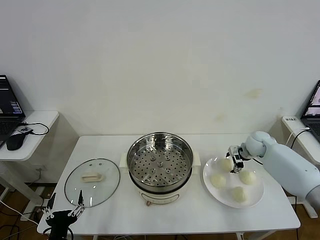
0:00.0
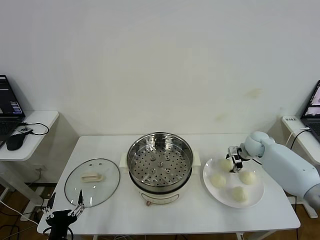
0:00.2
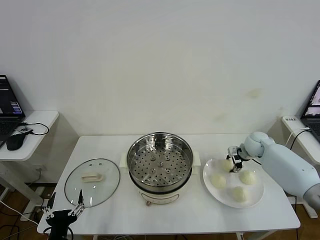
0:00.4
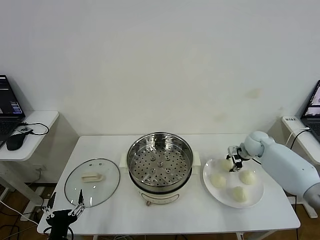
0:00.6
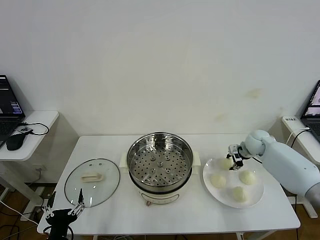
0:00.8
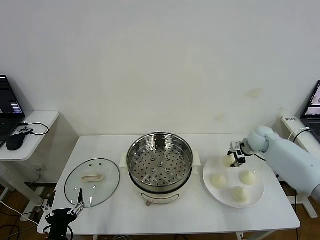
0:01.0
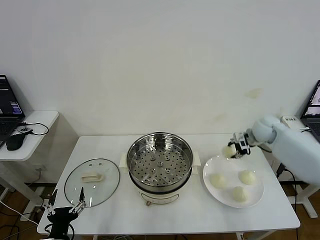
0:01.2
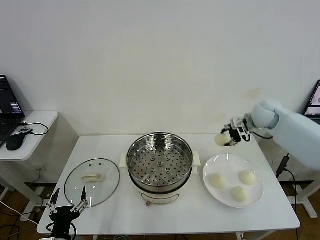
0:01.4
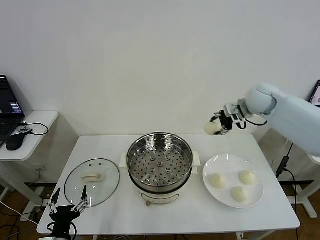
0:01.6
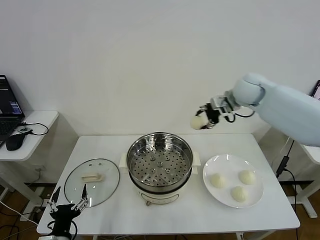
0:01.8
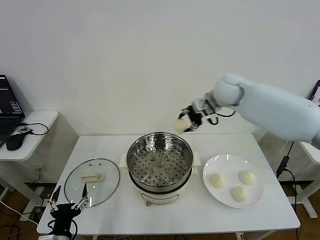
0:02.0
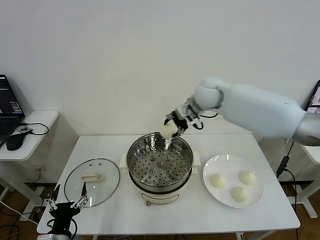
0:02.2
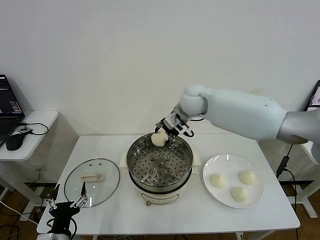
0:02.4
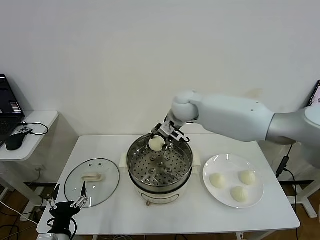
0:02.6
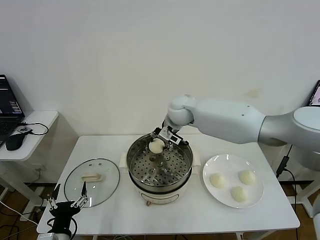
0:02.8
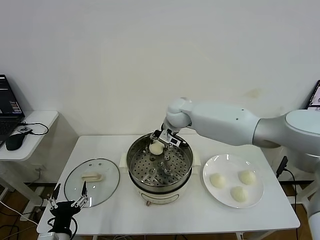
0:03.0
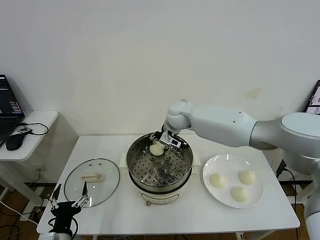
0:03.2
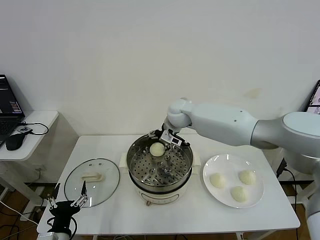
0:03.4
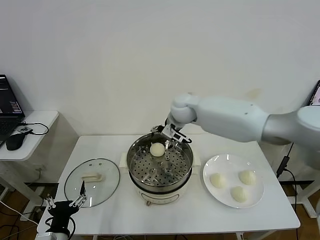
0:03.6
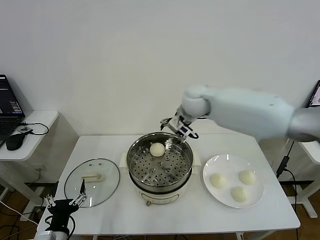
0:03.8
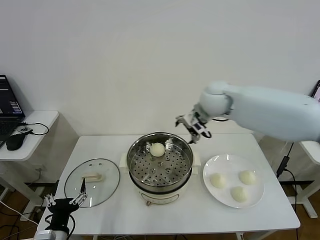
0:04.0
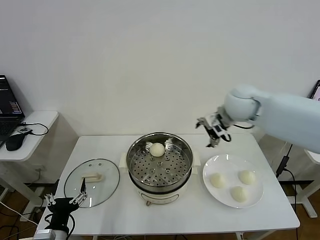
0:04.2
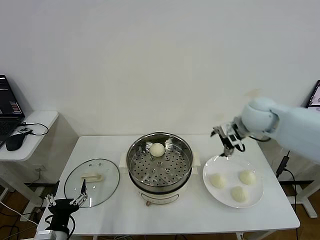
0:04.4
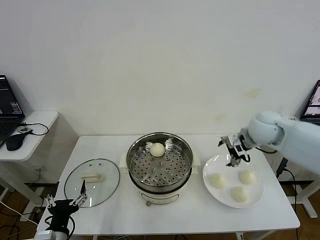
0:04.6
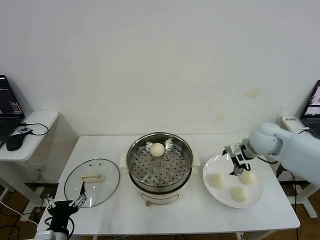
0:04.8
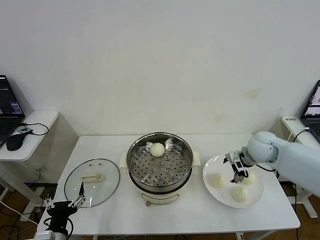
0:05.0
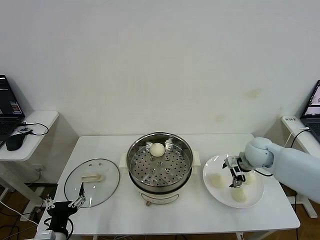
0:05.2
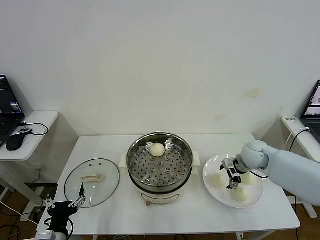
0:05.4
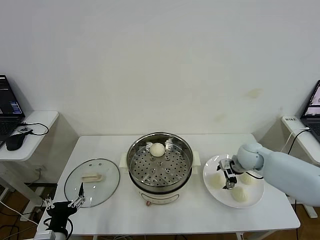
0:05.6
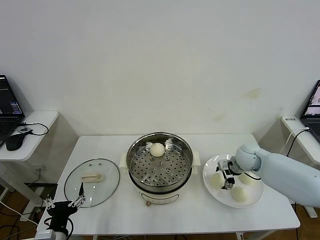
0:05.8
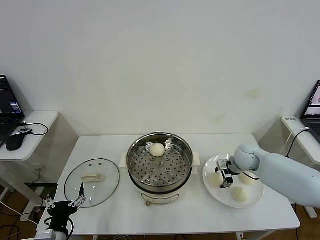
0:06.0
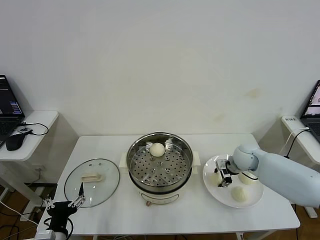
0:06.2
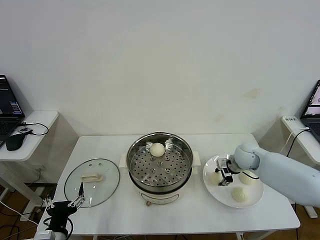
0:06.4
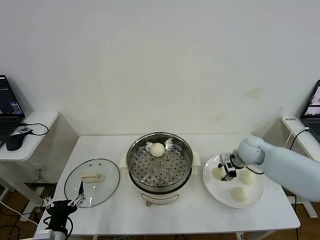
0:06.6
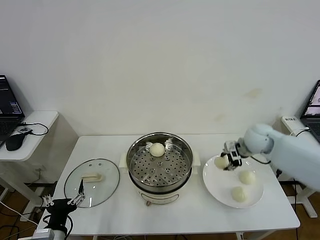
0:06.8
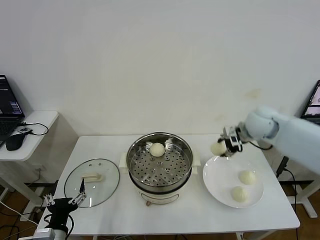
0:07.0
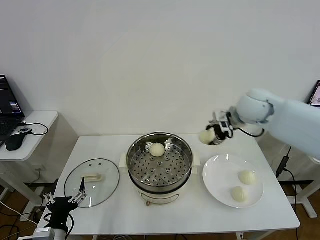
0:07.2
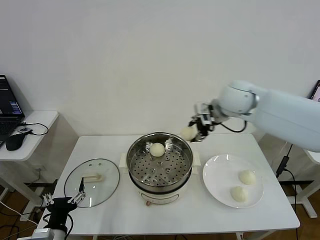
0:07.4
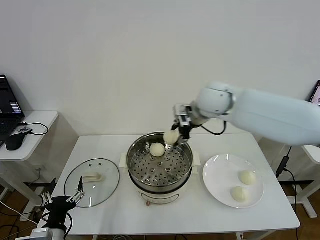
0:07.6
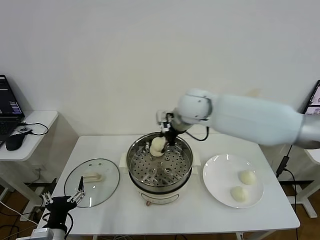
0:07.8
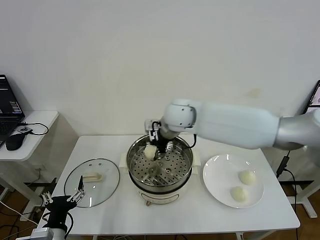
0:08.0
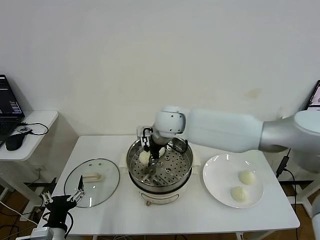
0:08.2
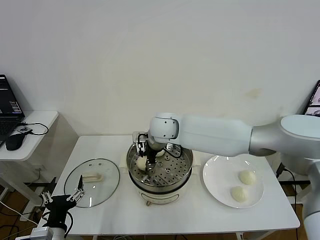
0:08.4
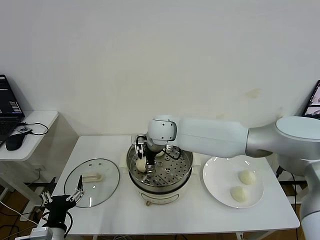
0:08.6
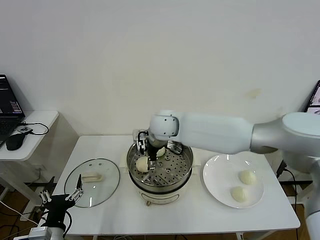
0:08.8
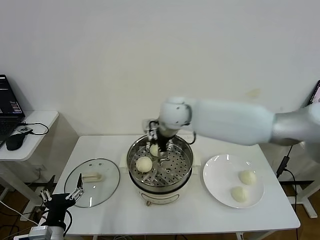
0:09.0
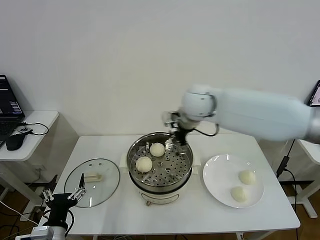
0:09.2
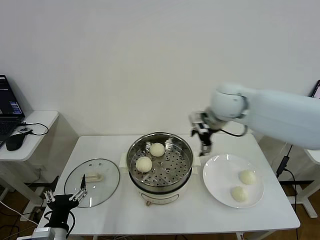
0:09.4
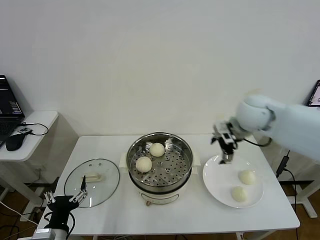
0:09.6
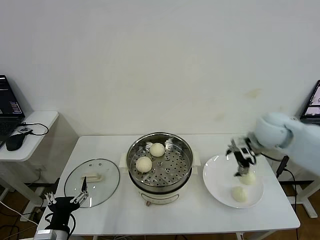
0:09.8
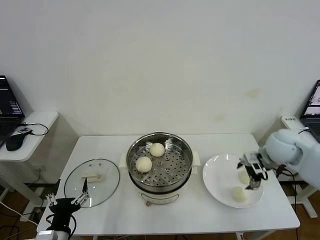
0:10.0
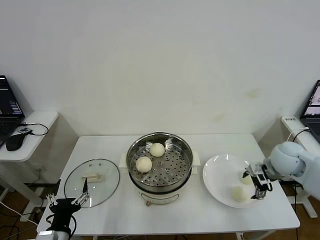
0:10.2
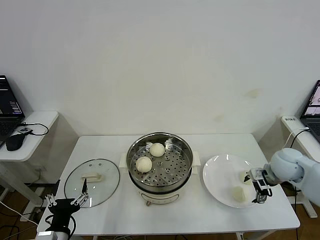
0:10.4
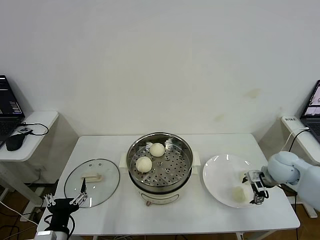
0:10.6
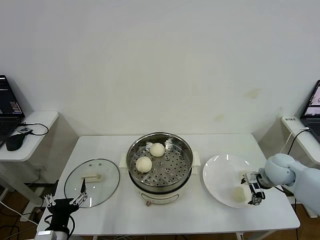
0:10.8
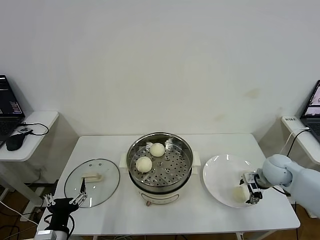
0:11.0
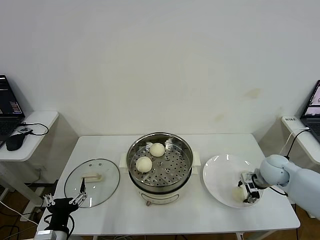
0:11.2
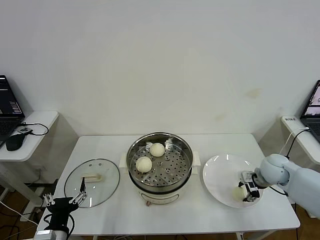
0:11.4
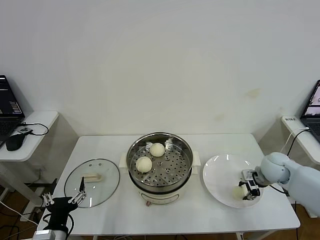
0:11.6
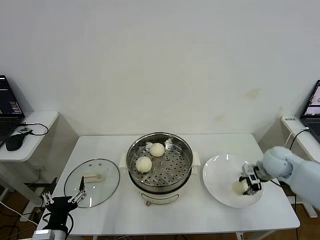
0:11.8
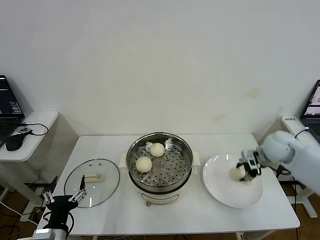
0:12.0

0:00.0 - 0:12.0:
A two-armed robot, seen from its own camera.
Step, 0:00.8 - 0:03.4: Place the baozi on the steamer with right gripper.
Step, 0:03.6 - 0:06.4: Grasp the baozi in the plate with right gripper.
Step, 0:06.6 - 0:08.8: Place the baozi on the steamer with right gripper.
Step, 0:09.0 - 0:11.6: Grasp the baozi in the plate with right gripper.
0:00.0 - 0:01.6: The right gripper moves upward, some 20 cm, and closes its fingers.
0:01.6 - 0:03.0: The right gripper goes some 25 cm to the left.
0:03.0 - 0:04.4: The right gripper shifts approximately 25 cm to the right, and opens.
0:04.4 - 0:06.0: The right gripper moves downward, about 20 cm, and closes.
0:06.0 - 0:07.6: The right gripper is displaced upward and to the left by approximately 30 cm, and closes its fingers.
0:07.6 - 0:09.0: The right gripper moves to the left, some 10 cm, and opens up.
0:09.0 - 0:10.4: The right gripper is displaced to the right and downward by roughly 35 cm.
0:10.4 - 0:12.0: The right gripper travels forward by about 5 cm, and closes up.

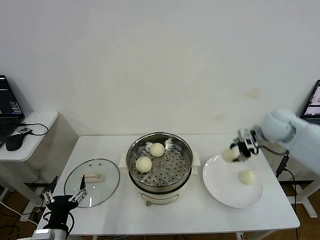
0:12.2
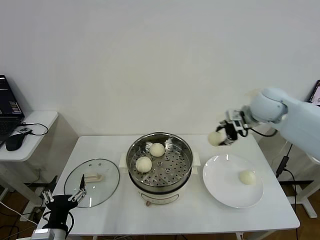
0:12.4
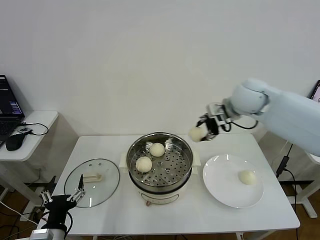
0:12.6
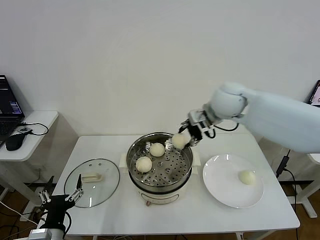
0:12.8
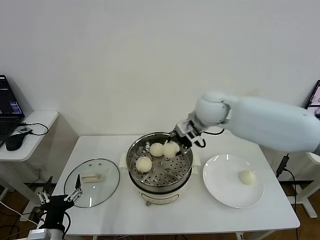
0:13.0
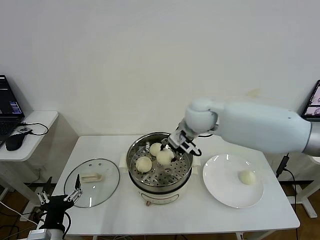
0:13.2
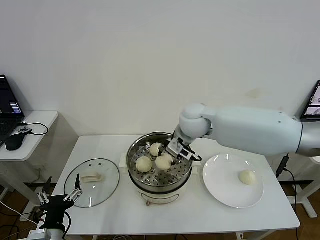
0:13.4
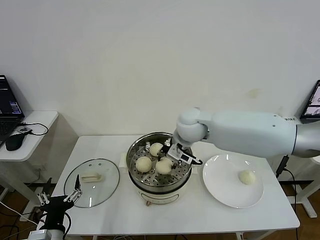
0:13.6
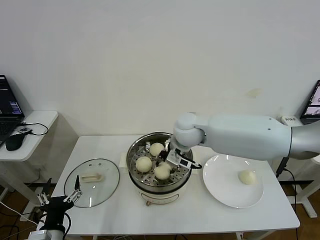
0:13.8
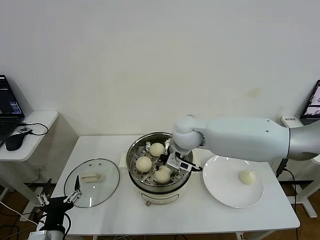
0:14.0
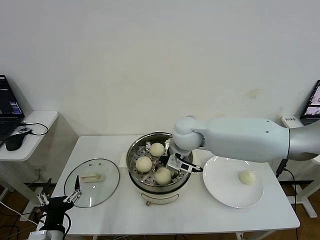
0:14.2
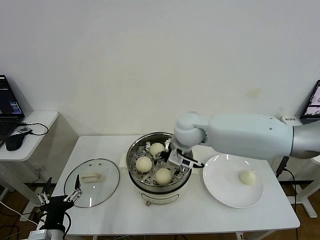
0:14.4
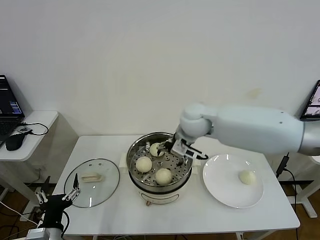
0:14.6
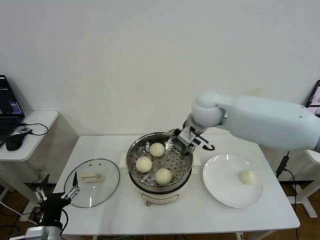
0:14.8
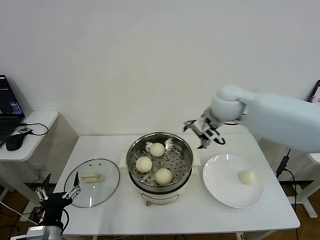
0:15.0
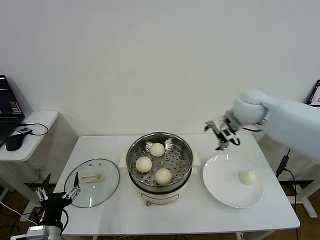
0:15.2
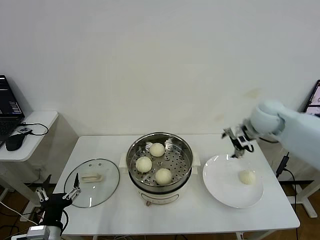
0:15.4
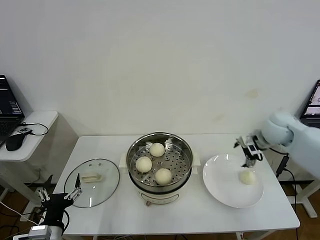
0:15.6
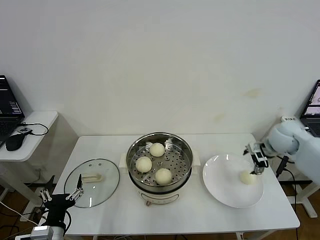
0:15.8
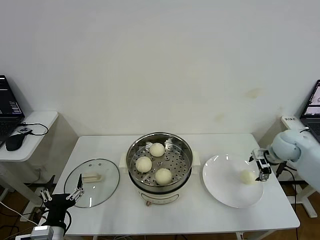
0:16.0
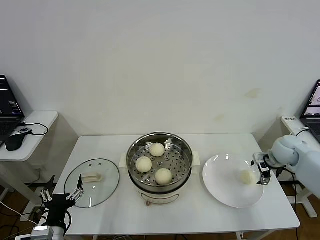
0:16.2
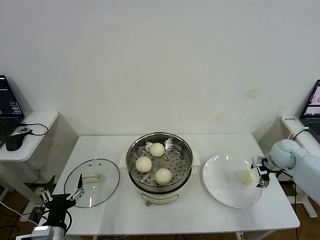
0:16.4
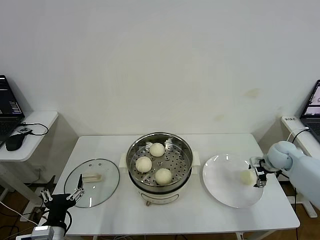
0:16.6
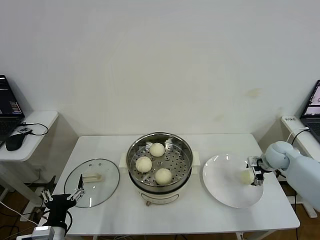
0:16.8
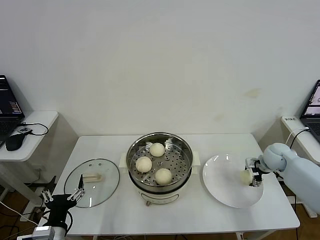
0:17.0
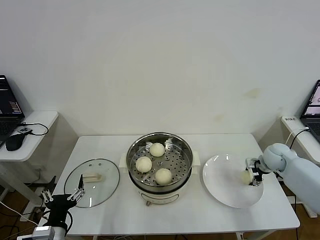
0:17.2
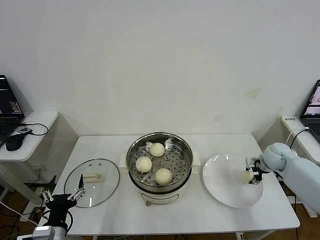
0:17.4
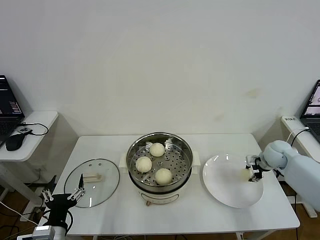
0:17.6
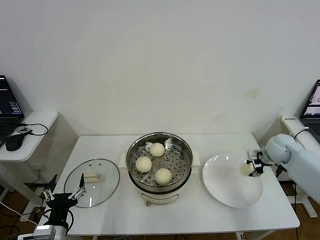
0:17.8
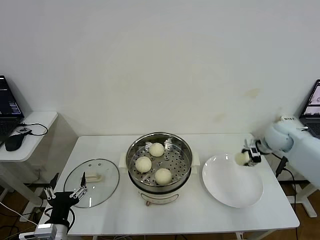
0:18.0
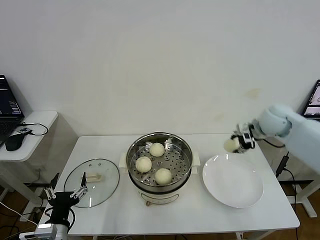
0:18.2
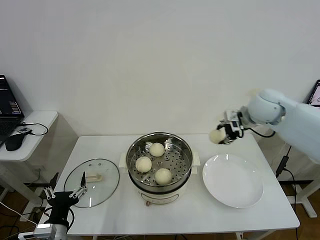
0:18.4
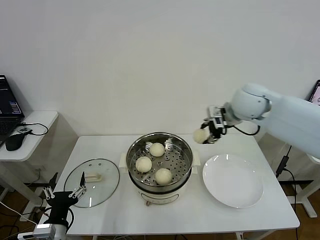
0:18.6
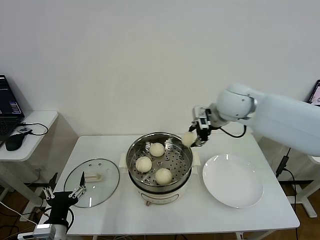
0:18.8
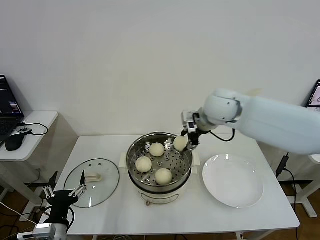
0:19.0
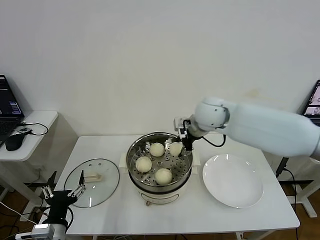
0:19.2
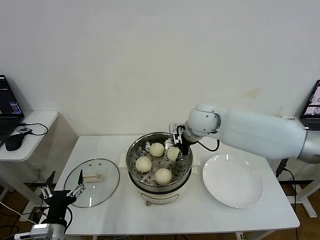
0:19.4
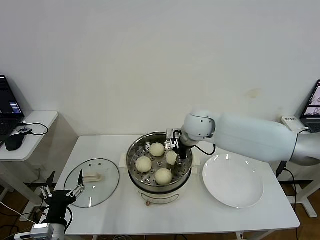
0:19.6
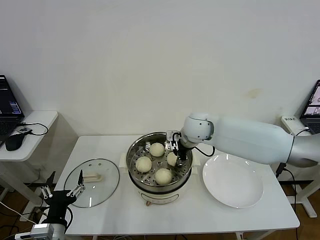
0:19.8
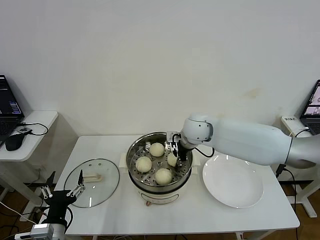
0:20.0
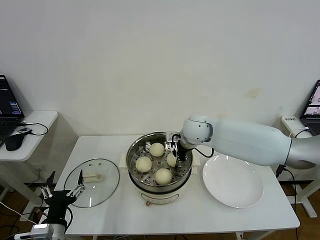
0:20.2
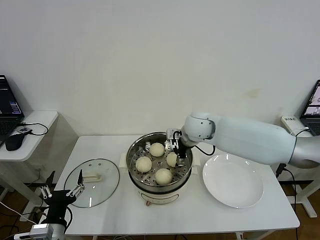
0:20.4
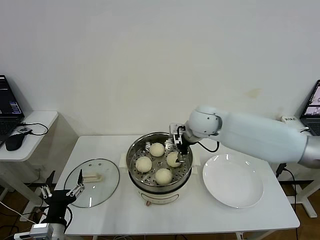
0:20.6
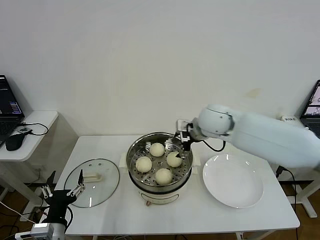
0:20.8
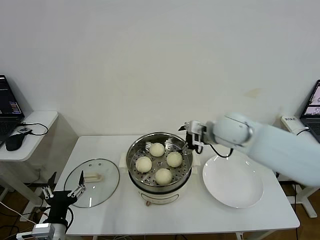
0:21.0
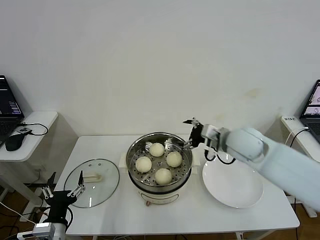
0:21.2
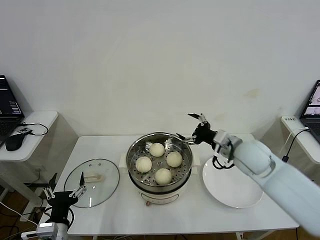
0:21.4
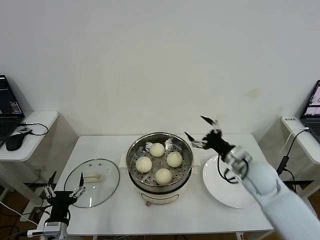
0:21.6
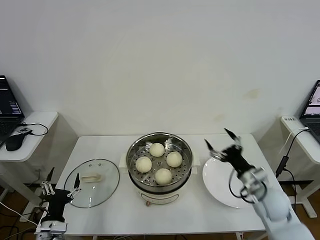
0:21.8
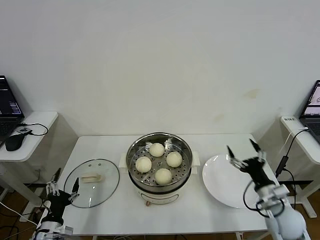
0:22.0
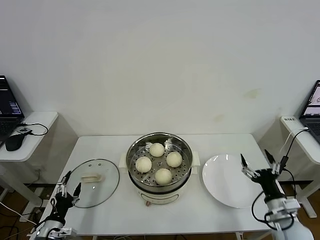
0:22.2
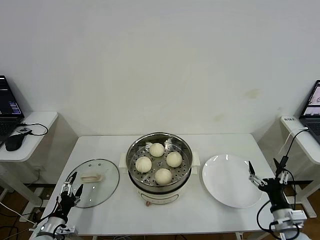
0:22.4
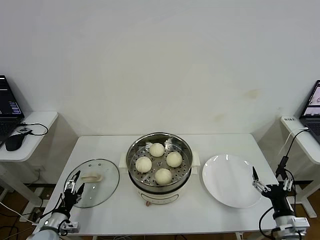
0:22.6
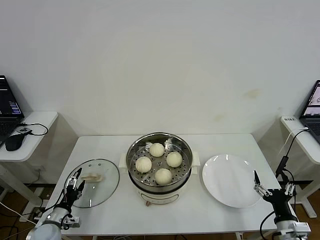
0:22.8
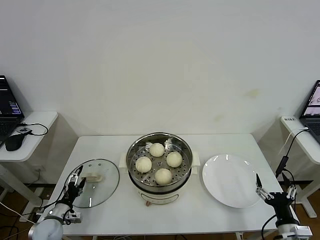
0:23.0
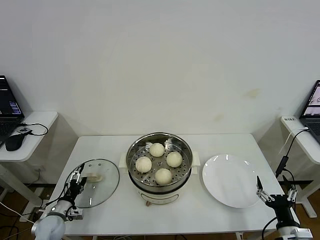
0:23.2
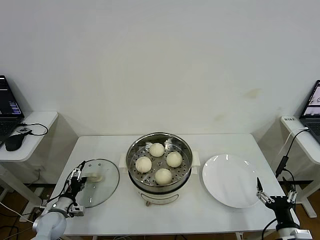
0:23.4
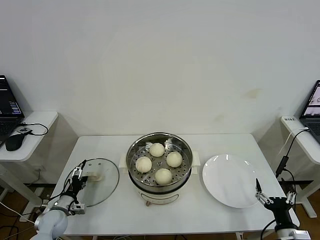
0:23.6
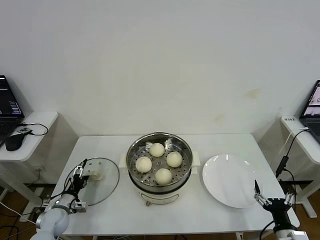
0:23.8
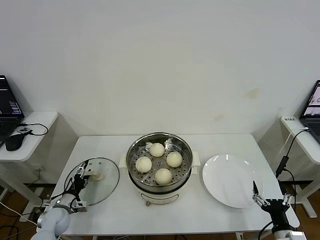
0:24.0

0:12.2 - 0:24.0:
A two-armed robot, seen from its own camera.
Step, 0:12.2 - 0:14.4: Place the baozi on the steamer with right gripper.
Step, 0:14.6 - 0:17.6: Grasp the baozi in the plate with right gripper.
Step, 0:17.8 - 0:20.4: Place the baozi on the steamer with right gripper.
0:12.2 - 0:13.6: The right gripper moves to the left, approximately 25 cm.
0:13.6 - 0:15.2: The right gripper is displaced to the right by approximately 15 cm, and opens up.
0:15.2 - 0:16.6: The right gripper shifts some 25 cm downward and to the right.
0:16.6 - 0:18.2: The right gripper travels upward and to the left by about 15 cm, and closes its fingers.
0:18.2 - 0:19.6: The right gripper moves to the left, approximately 25 cm.
0:19.6 - 0:21.0: The right gripper shifts approximately 5 cm to the right, and opens.
0:21.0 - 0:22.6: The left gripper heads downward, to the left and forward, covering approximately 20 cm; the right gripper travels backward, downward and to the right by some 40 cm.
0:22.6 - 0:24.0: The left gripper shifts about 10 cm forward, while the right gripper shifts by approximately 5 cm.
